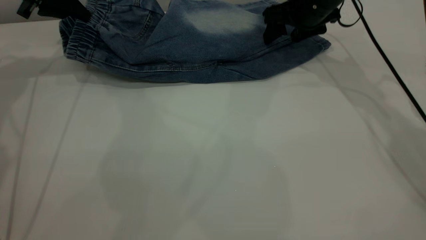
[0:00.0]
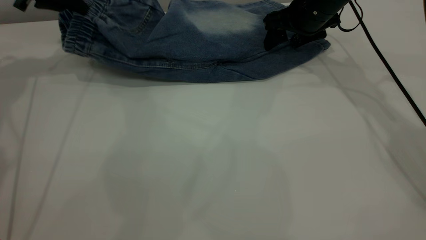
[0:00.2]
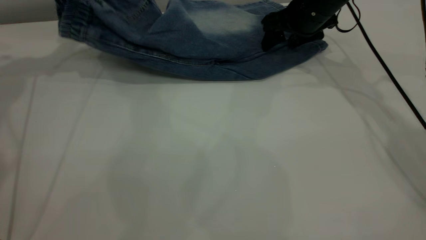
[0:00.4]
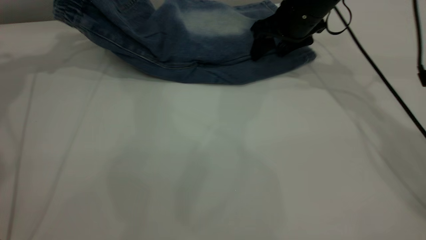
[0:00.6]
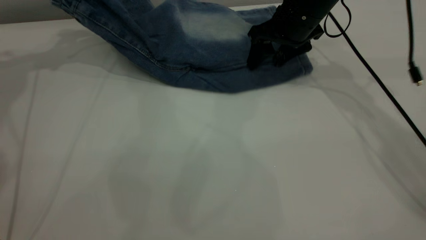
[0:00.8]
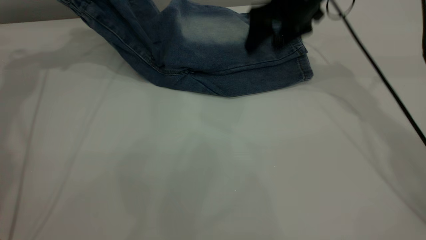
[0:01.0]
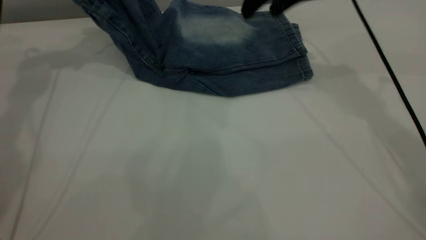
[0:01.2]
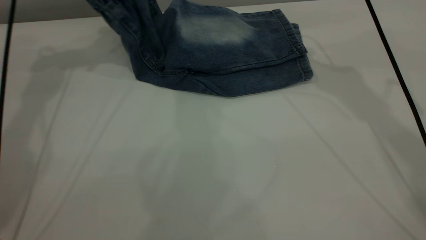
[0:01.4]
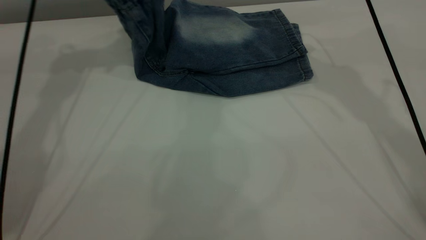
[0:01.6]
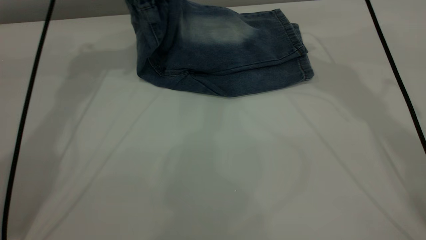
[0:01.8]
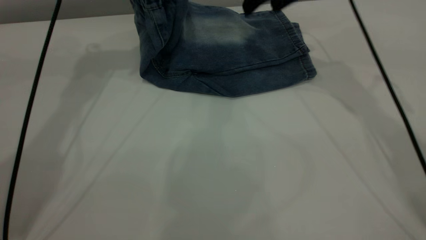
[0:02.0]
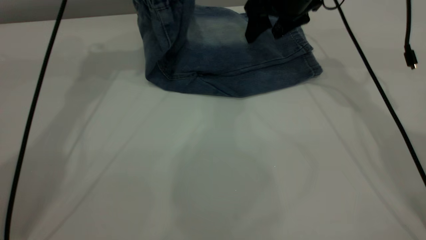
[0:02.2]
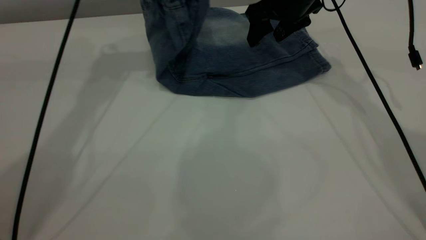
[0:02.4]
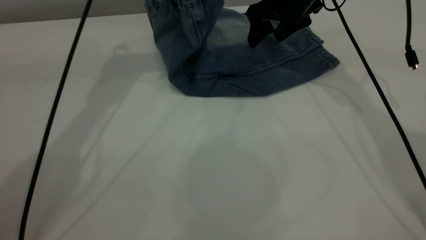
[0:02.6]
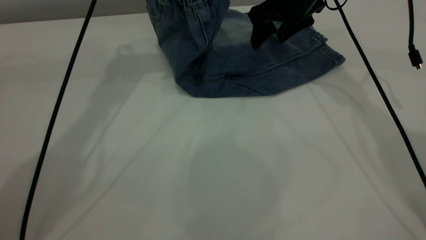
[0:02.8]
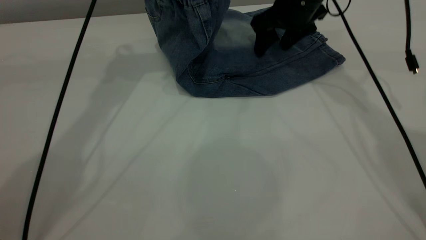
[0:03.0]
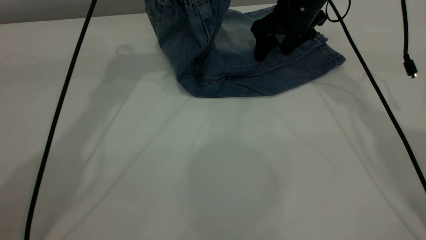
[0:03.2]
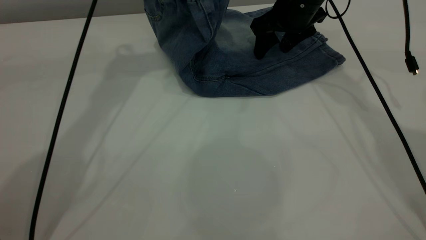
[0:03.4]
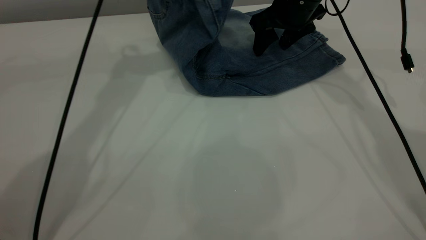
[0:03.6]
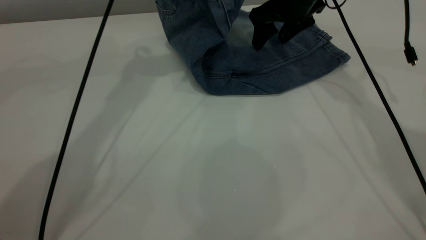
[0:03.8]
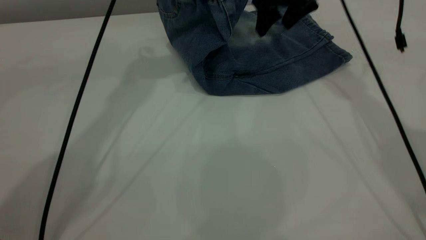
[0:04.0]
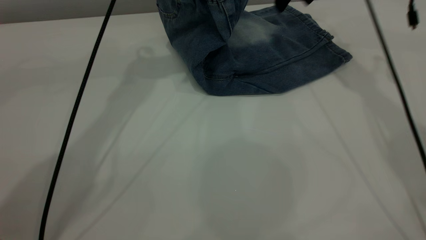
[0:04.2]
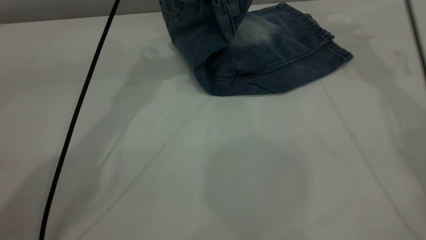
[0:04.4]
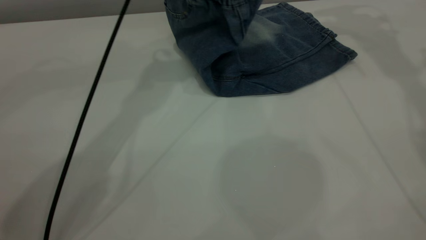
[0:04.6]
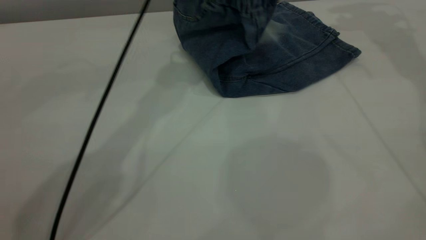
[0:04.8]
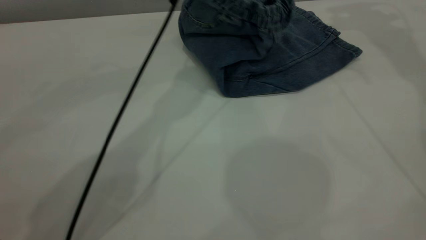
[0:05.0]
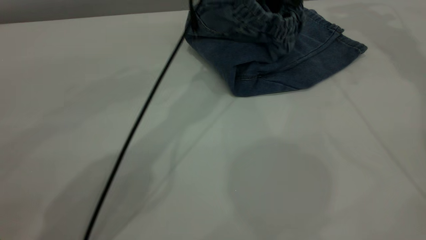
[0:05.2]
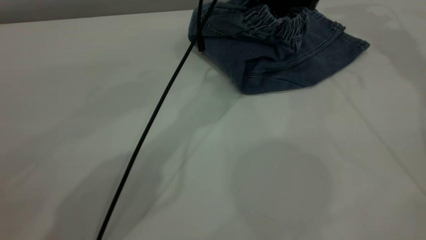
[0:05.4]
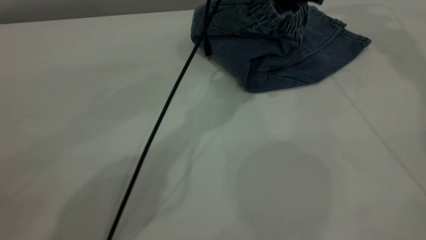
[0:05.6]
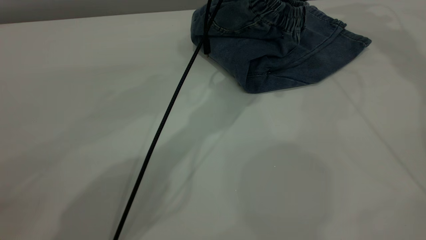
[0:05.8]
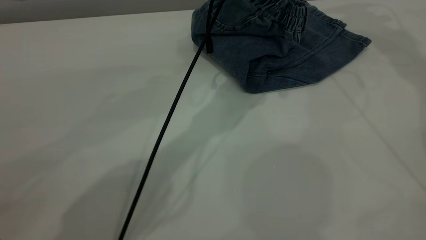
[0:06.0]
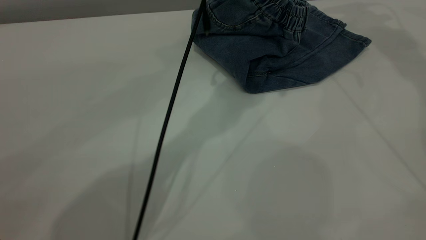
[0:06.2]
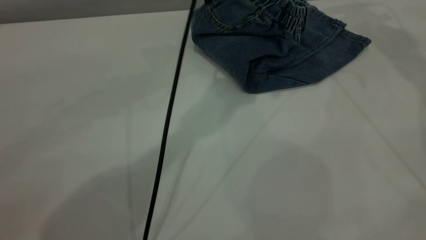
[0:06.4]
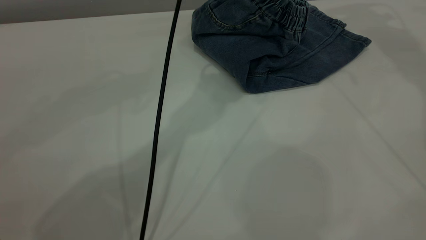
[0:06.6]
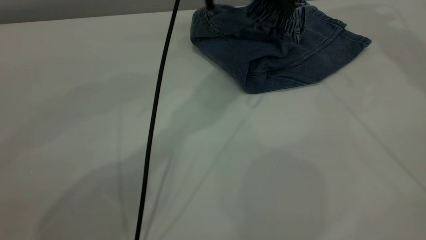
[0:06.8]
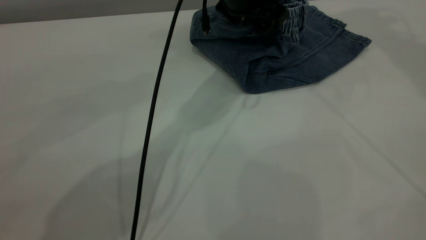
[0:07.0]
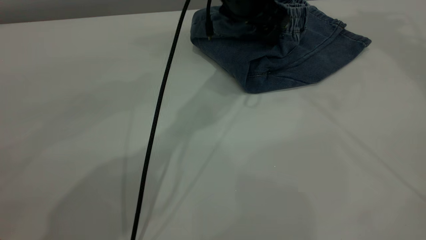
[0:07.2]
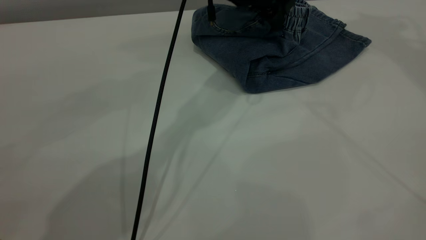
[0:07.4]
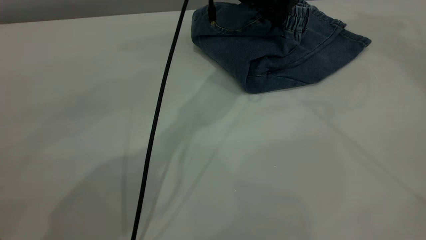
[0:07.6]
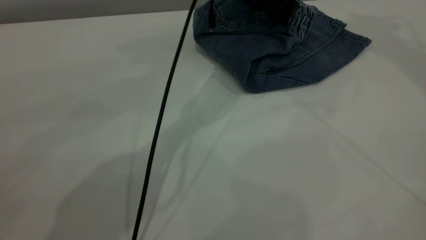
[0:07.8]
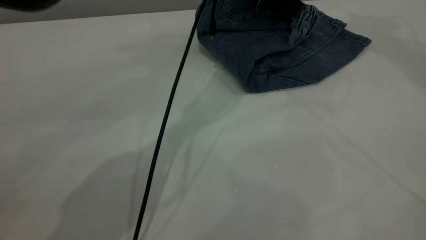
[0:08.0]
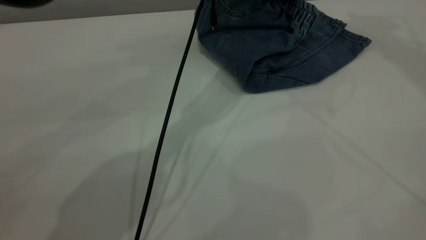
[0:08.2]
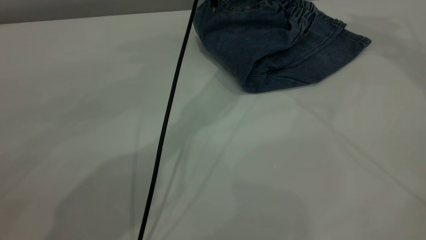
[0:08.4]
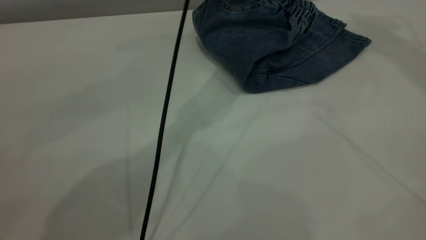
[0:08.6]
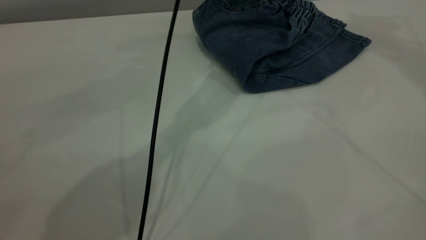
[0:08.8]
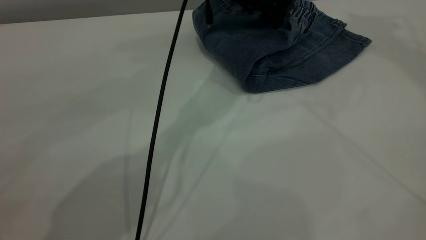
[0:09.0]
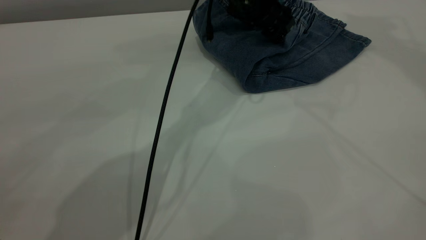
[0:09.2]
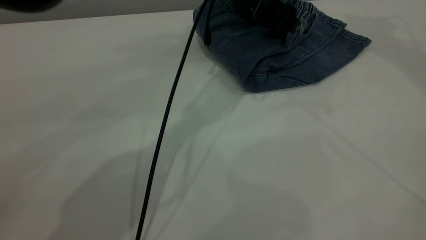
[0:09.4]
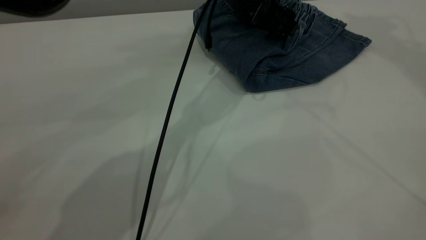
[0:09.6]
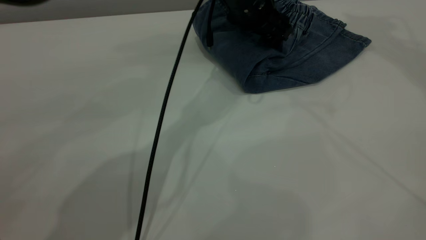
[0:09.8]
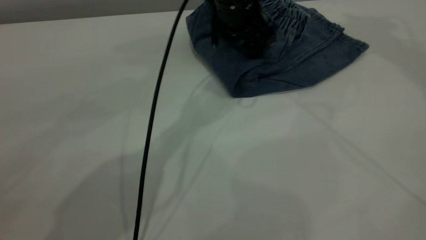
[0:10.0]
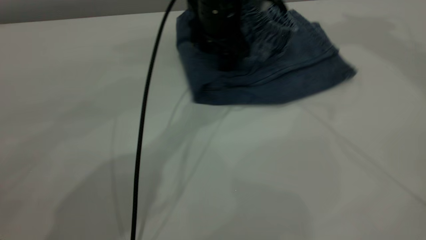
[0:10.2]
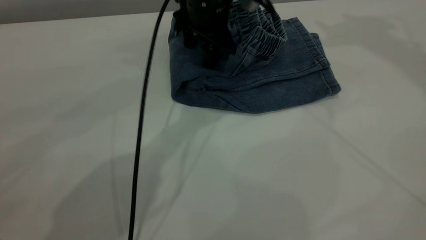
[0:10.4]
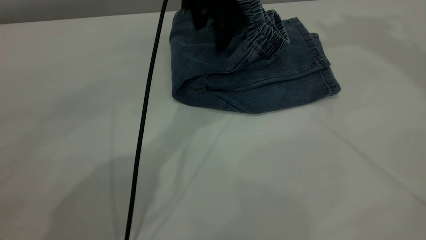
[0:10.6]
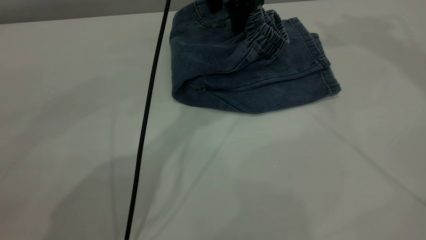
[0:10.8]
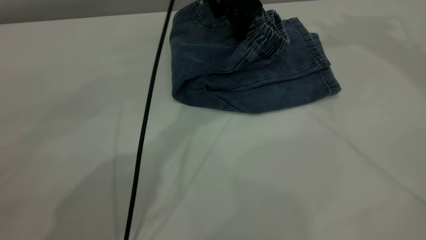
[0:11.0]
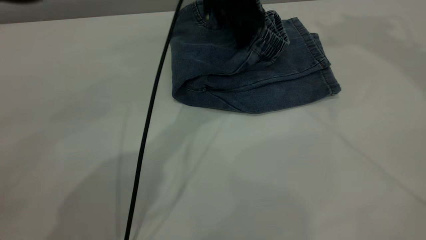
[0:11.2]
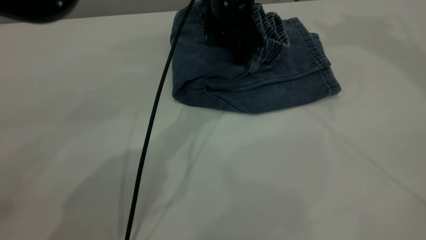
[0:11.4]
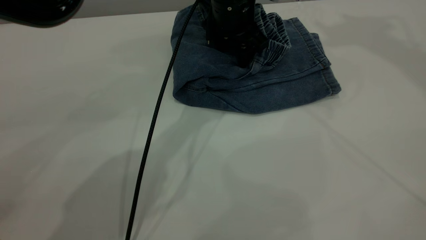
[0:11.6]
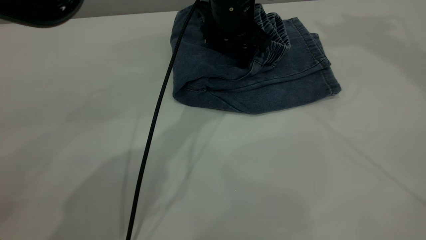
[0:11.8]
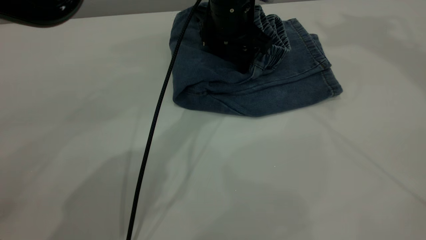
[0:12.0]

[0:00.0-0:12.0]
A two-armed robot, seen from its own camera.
Step, 0:00.0 to 0:08.8: Fold the pants from left to right.
0:00.0 to 0:01.6: The right gripper heads upward, covering roughly 10 cm, while the left gripper is displaced to the right and upward by some 15 cm.
0:01.6 to 0:03.0: The left gripper is displaced to the right by approximately 10 cm; the right gripper travels downward by some 10 cm.
0:03.0 to 0:04.4: The left gripper is displaced to the right by some 5 cm. Meanwhile the right gripper heads upward, to the right and forward, covering roughly 15 cm.
0:04.4 to 0:06.0: The left gripper shifts about 15 cm to the right and downward, and opens; the right gripper moves upward, about 10 cm.
0:06.0 to 0:07.6: The right gripper heads upward and backward, covering roughly 20 cm; the left gripper travels upward and back again, about 5 cm each way.
0:07.6 to 0:09.0: The left gripper goes upward and returns, approximately 5 cm each way.
0:10.4 to 0:12.0: The left gripper travels upward and back again, about 5 cm each way.

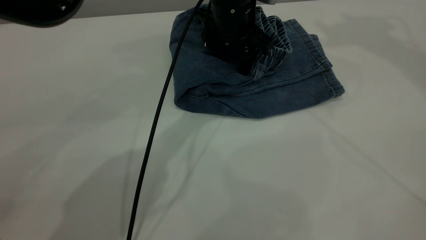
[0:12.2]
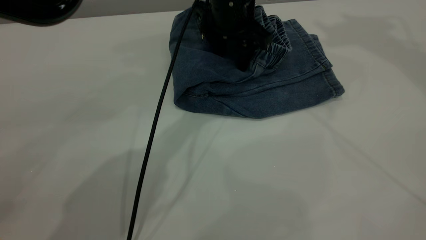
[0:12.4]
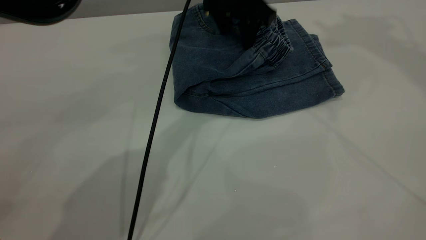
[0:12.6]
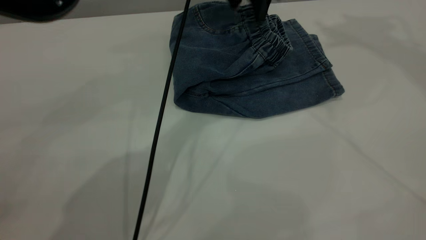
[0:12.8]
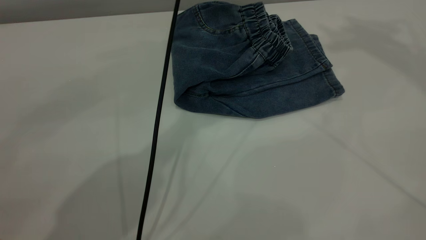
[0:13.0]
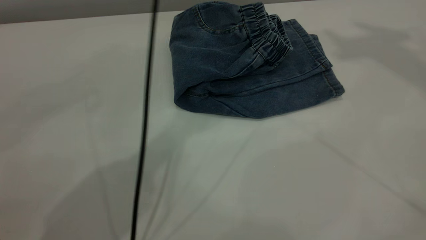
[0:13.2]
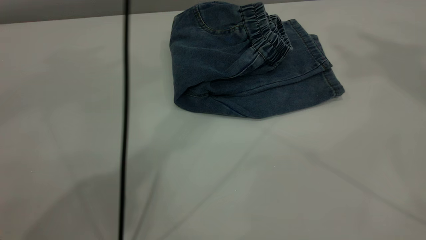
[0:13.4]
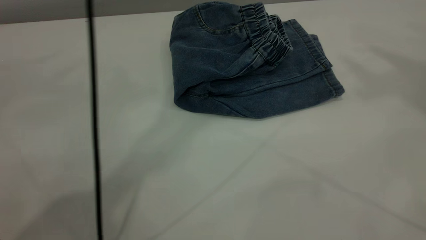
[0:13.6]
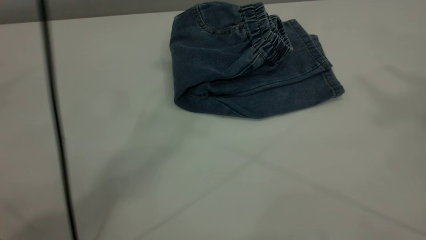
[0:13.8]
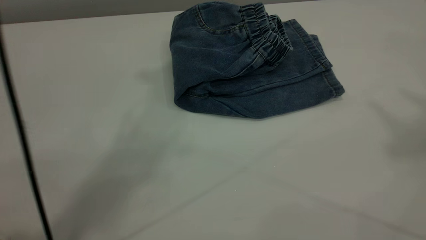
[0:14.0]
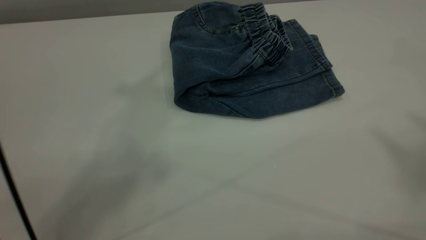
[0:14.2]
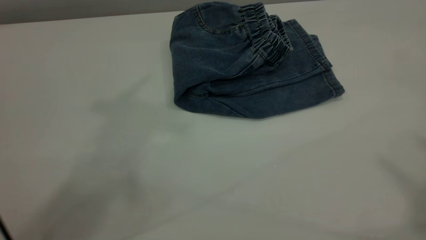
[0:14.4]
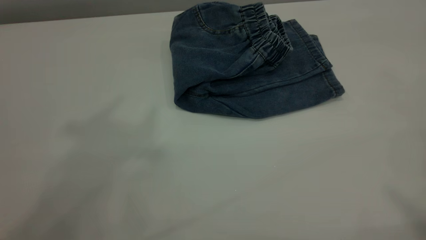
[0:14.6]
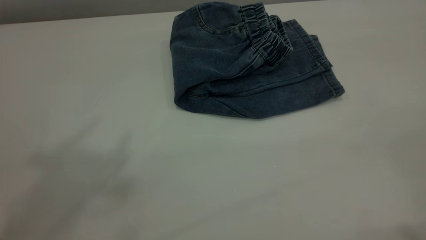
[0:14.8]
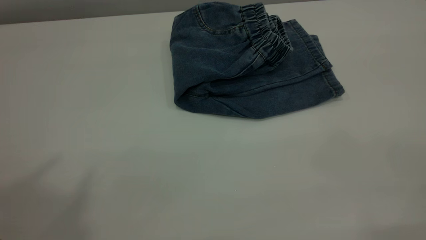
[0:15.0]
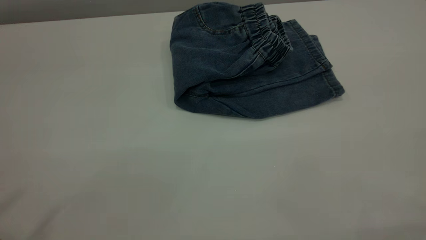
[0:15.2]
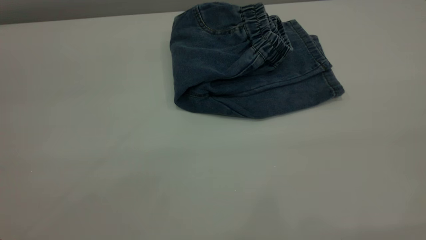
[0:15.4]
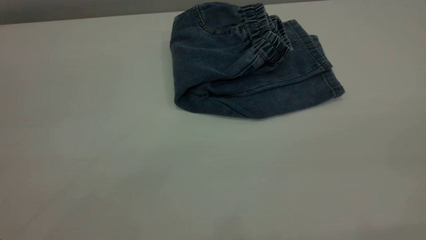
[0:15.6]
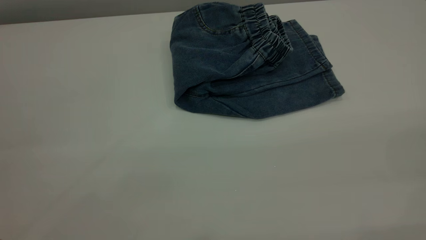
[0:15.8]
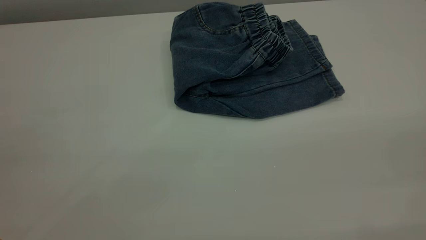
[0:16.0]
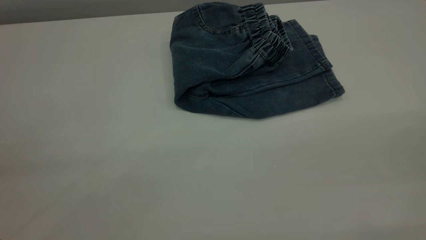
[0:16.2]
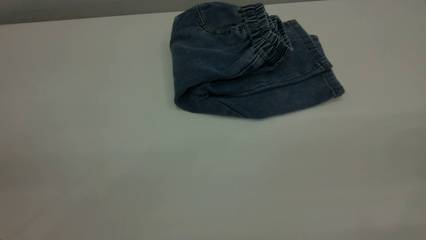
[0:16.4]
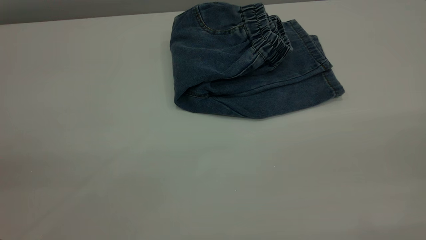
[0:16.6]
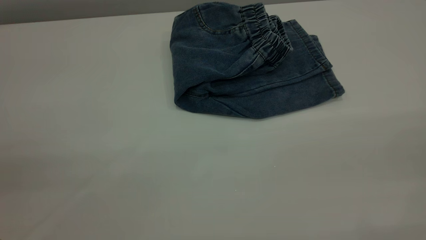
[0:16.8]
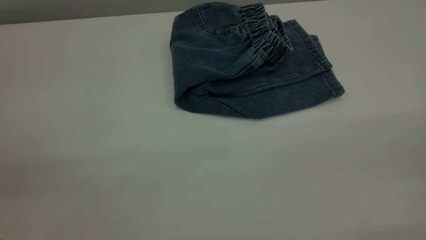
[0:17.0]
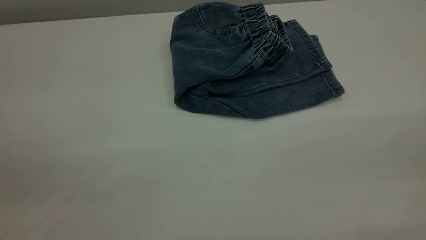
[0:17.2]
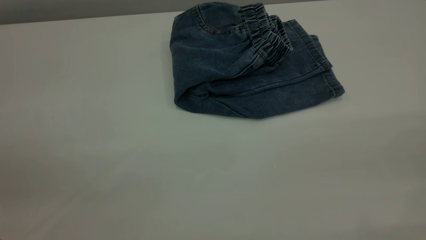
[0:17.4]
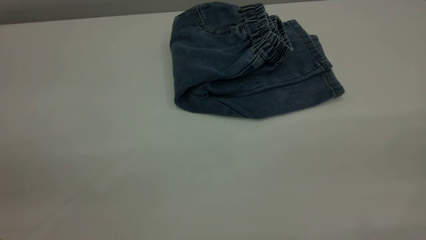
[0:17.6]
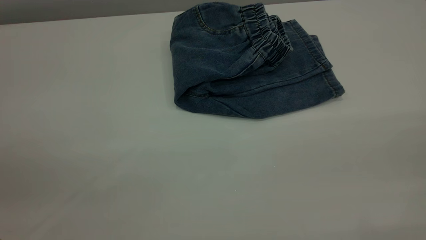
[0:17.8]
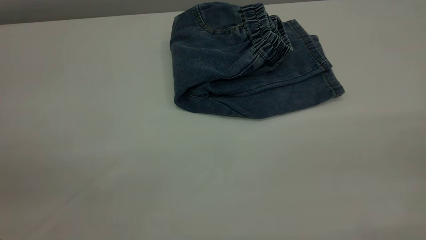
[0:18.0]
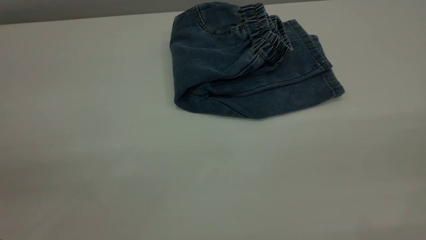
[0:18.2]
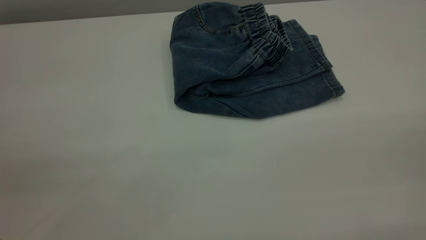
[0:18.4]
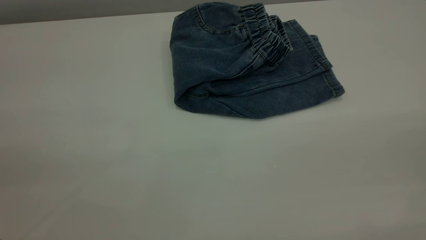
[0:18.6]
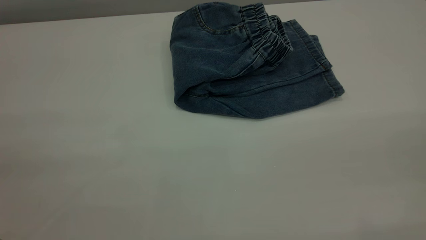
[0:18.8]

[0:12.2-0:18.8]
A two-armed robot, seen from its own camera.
0:12.2 to 0:13.8: The right gripper heads backward and upward, covering approximately 20 cm. The left gripper travels upward by roughly 40 cm.
0:13.8 to 0:15.4: The left gripper goes approximately 35 cm backward and to the left.
